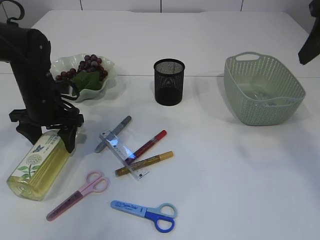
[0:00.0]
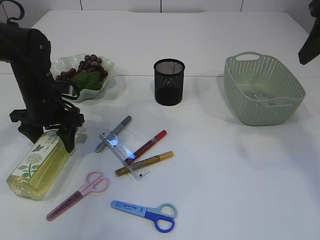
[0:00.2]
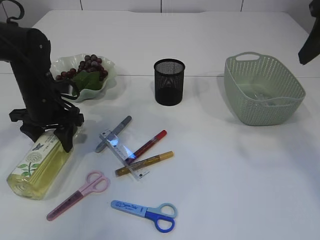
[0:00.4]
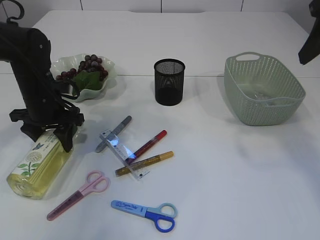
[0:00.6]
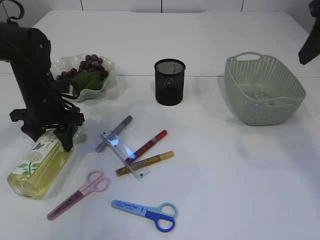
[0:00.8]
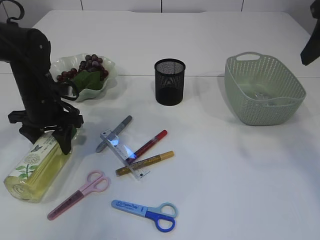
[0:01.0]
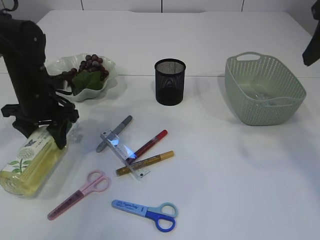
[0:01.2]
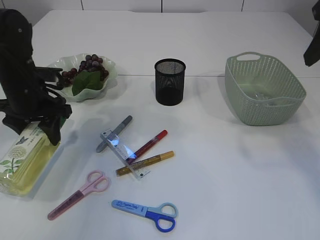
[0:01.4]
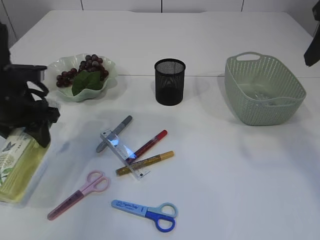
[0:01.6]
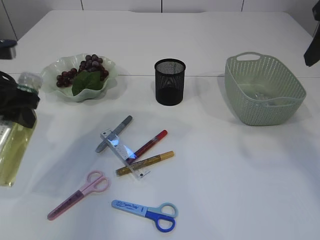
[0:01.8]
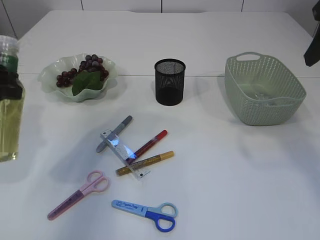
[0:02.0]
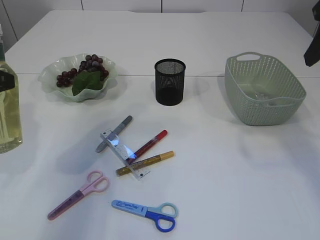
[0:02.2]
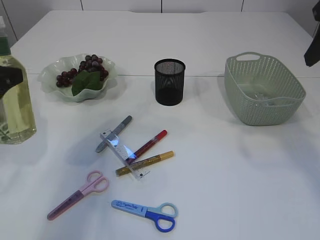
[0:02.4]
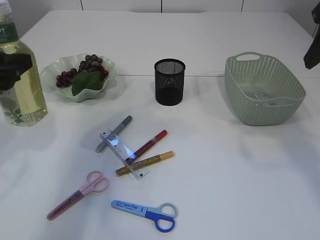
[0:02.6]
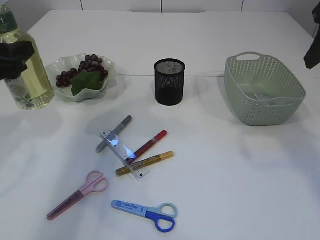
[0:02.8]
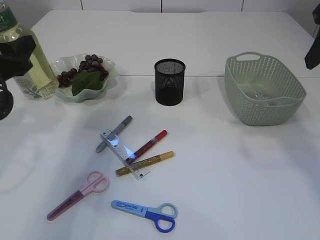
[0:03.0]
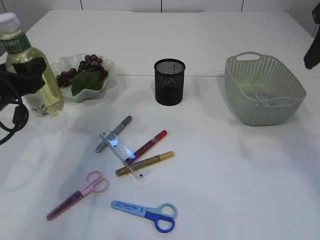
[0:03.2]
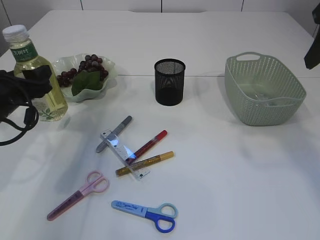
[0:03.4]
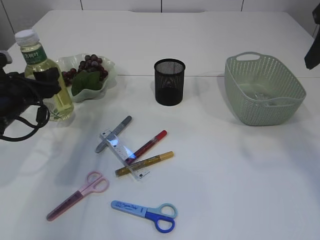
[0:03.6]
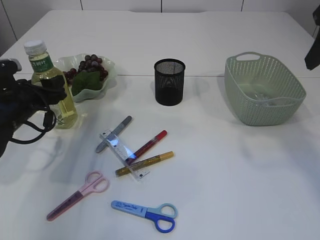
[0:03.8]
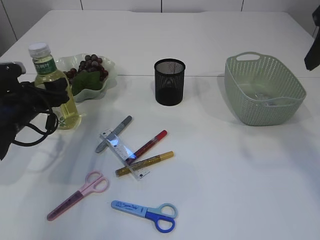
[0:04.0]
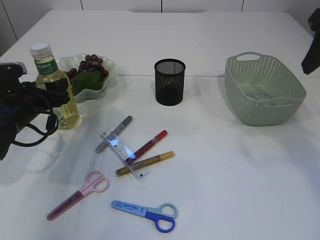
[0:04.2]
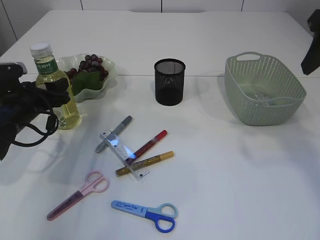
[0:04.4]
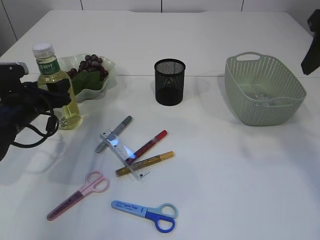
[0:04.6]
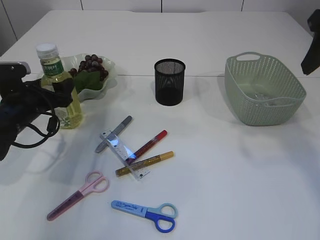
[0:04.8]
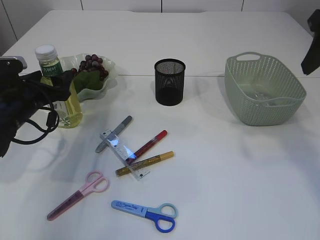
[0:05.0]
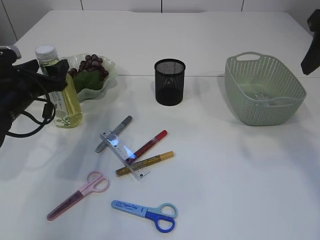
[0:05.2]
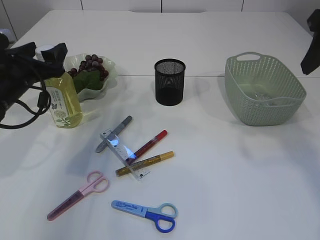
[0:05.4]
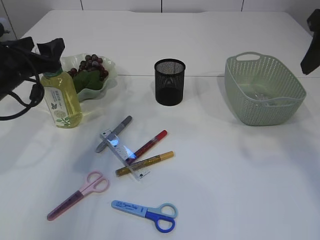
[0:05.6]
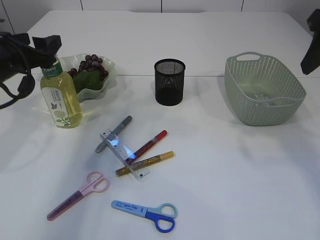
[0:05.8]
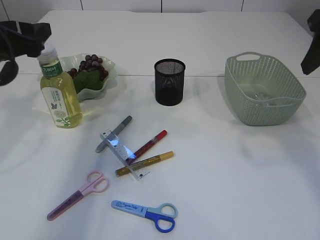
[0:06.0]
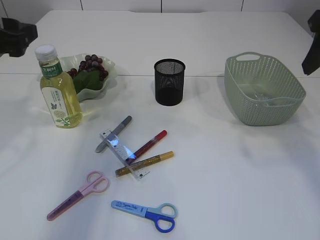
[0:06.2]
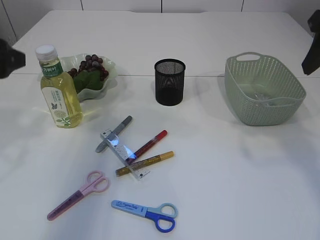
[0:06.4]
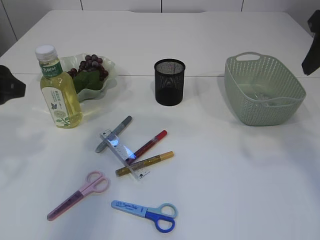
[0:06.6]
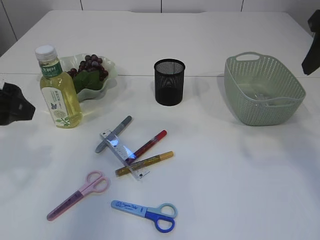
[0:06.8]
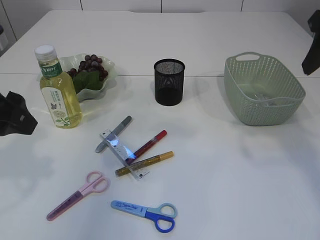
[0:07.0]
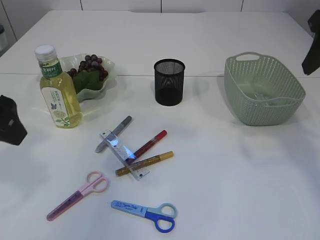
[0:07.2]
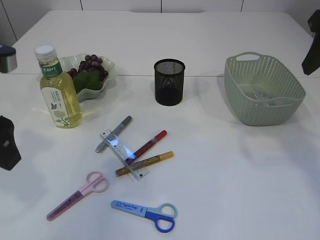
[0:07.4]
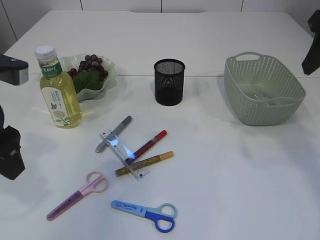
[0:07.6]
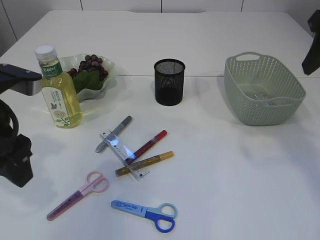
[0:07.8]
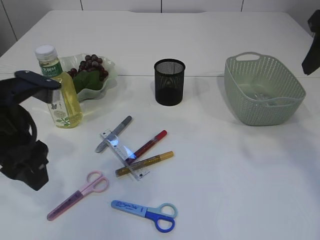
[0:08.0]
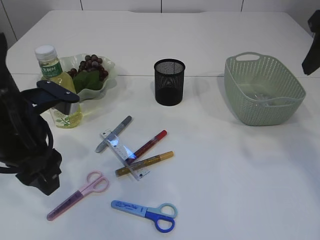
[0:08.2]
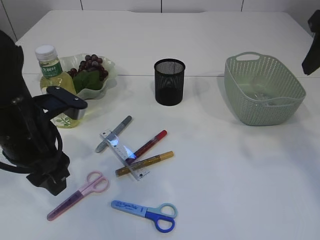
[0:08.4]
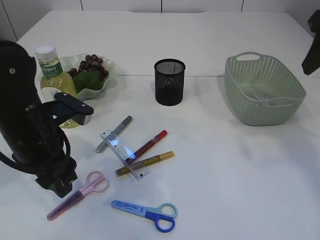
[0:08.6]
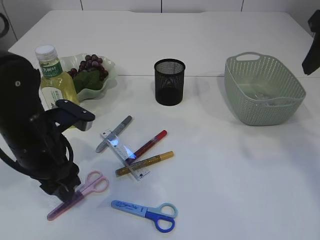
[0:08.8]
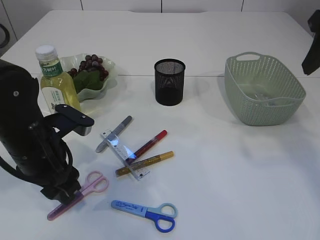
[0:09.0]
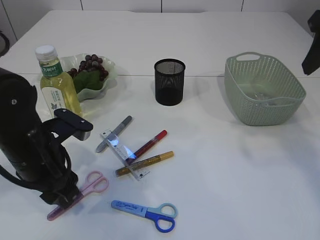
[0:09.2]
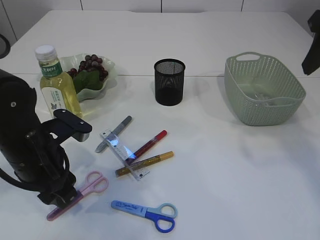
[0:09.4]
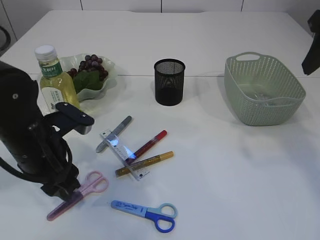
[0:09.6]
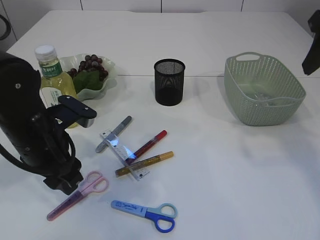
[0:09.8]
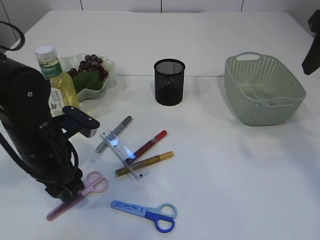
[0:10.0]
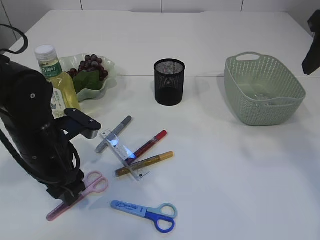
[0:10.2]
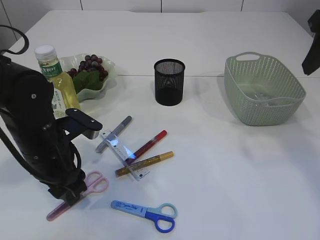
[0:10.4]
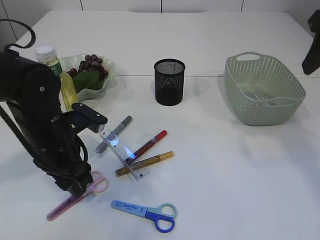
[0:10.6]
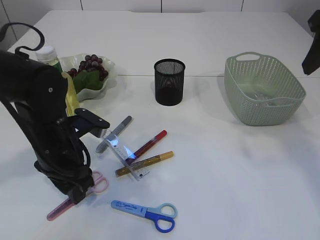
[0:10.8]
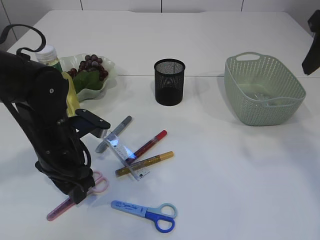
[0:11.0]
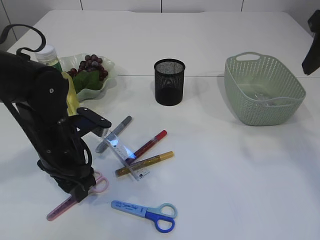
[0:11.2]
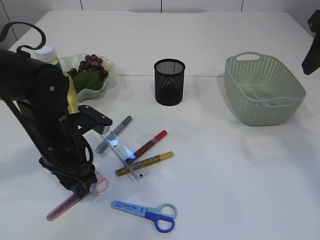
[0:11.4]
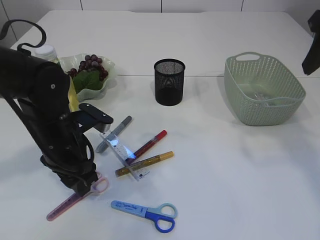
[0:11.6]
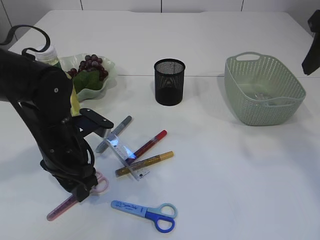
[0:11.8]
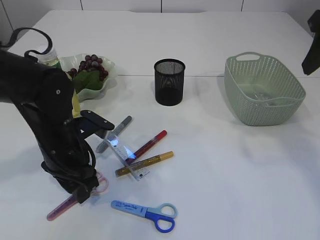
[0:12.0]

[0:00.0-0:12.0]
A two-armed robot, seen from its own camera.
Step, 0:01.8 to 0:05.8: Place the bottle.
0:00.0 to 0:01.6: The left gripper goes roughly 5 cm upward and backward.
0:03.0 to 0:04.4: The left gripper shifts about 15 cm downward and forward.
0:04.4 to 0:06.0: The left gripper shifts about 15 cm upward.
0:06.0 to 0:07.6: The left gripper goes approximately 10 cm backward.
0:07.6 to 0:09.0: The left gripper is displaced downward by about 10 cm.
0:09.0 to 0:12.0: The grippers make only small movements.

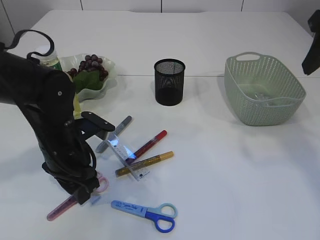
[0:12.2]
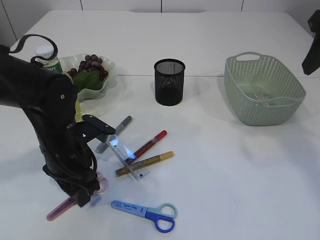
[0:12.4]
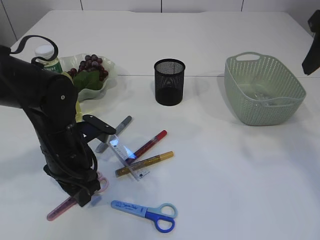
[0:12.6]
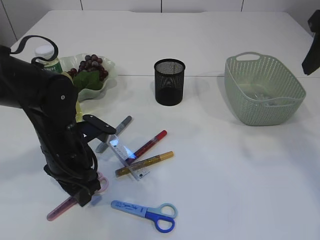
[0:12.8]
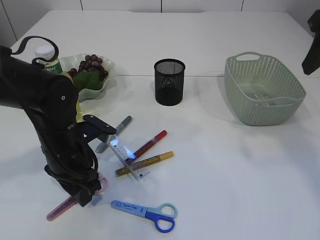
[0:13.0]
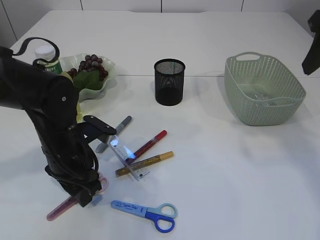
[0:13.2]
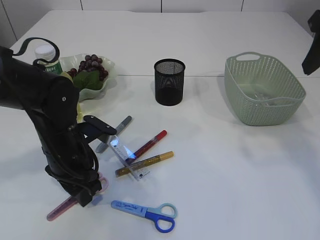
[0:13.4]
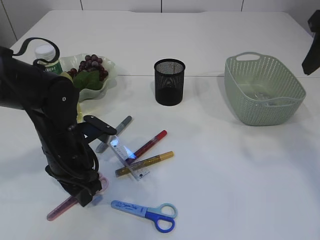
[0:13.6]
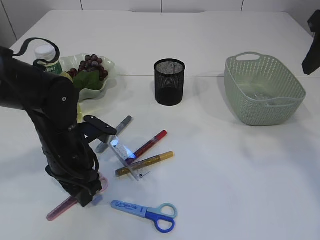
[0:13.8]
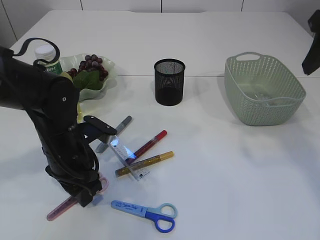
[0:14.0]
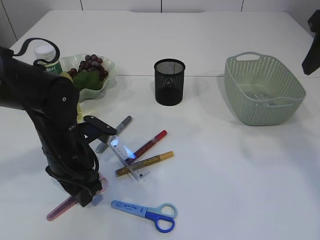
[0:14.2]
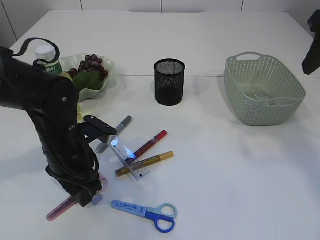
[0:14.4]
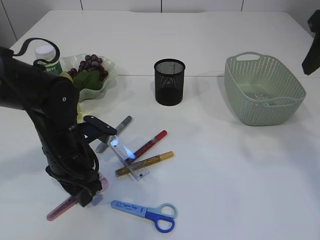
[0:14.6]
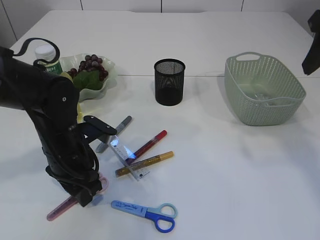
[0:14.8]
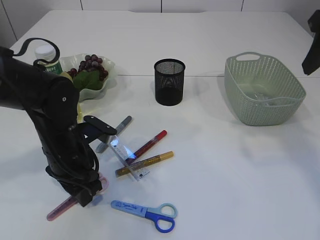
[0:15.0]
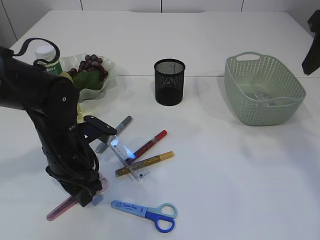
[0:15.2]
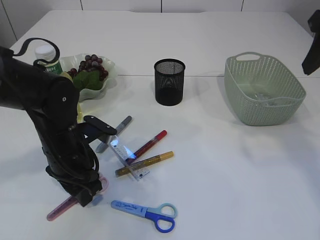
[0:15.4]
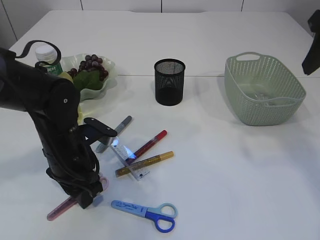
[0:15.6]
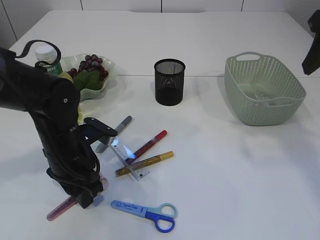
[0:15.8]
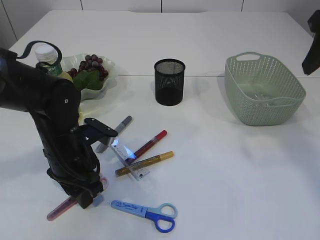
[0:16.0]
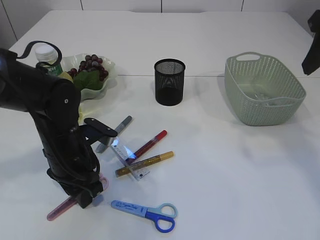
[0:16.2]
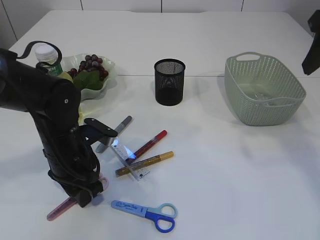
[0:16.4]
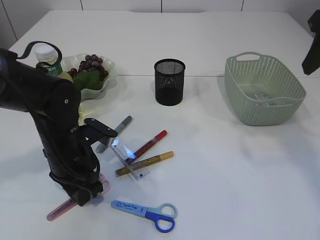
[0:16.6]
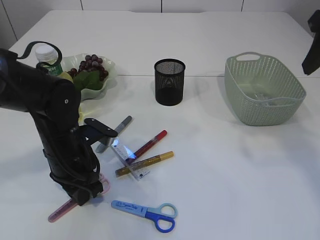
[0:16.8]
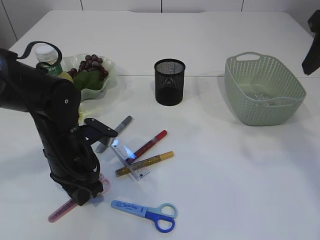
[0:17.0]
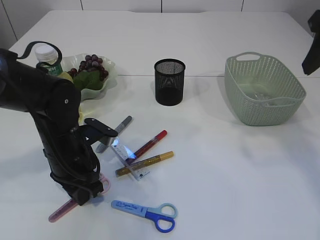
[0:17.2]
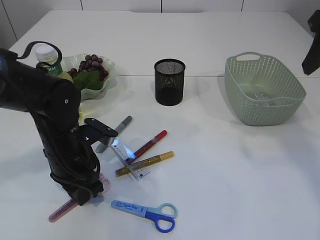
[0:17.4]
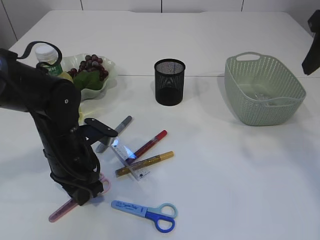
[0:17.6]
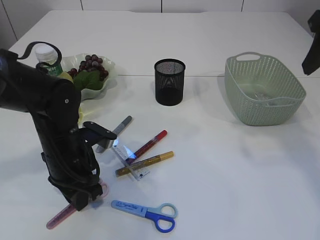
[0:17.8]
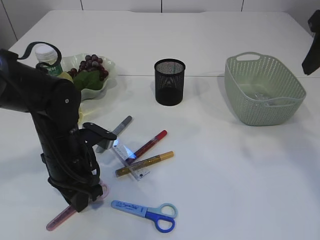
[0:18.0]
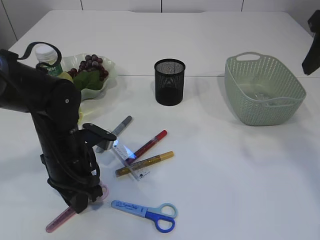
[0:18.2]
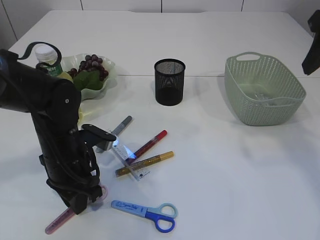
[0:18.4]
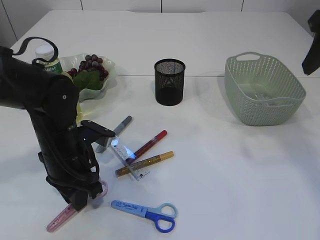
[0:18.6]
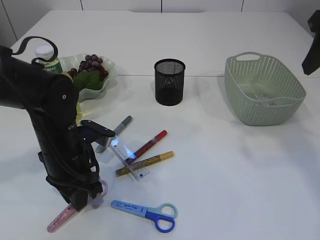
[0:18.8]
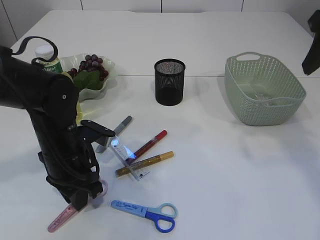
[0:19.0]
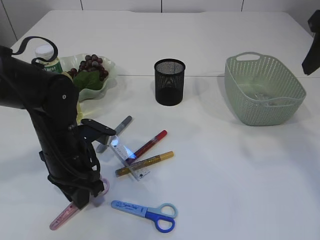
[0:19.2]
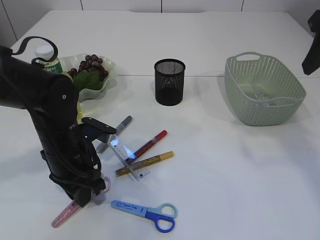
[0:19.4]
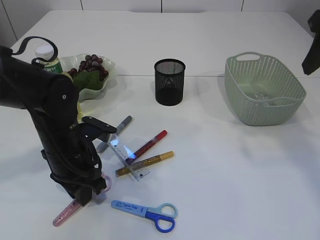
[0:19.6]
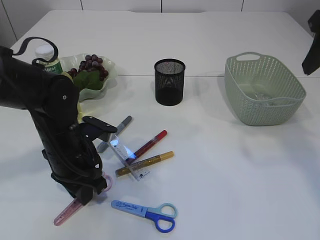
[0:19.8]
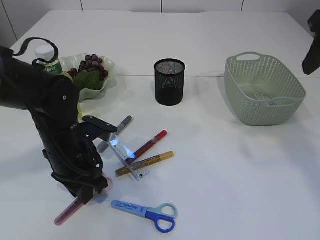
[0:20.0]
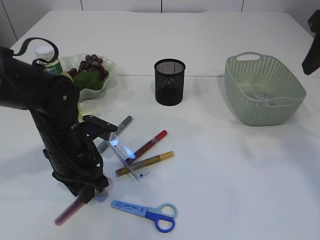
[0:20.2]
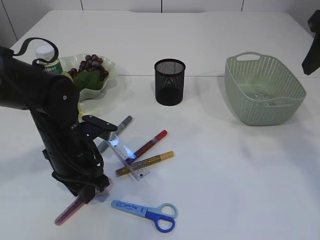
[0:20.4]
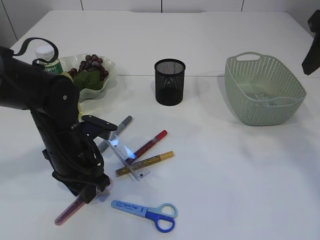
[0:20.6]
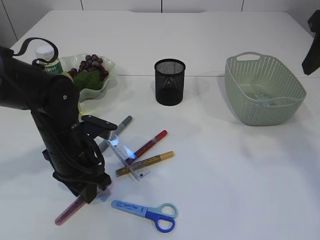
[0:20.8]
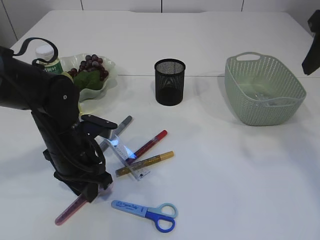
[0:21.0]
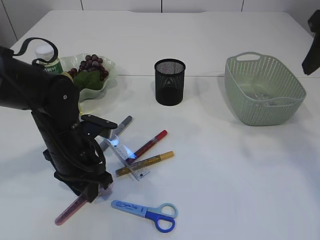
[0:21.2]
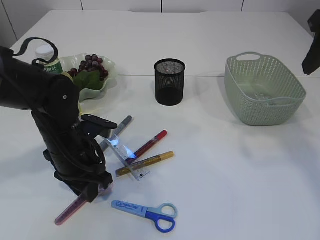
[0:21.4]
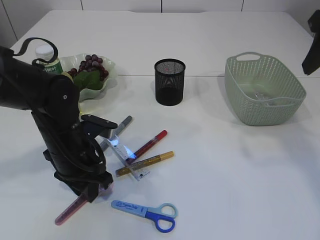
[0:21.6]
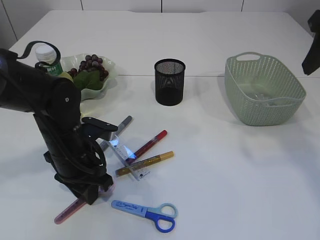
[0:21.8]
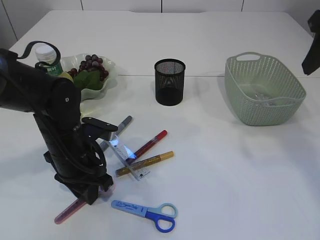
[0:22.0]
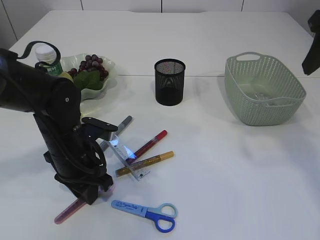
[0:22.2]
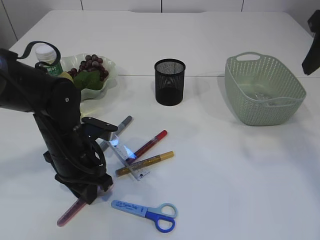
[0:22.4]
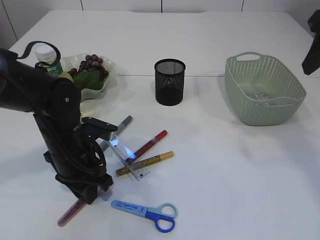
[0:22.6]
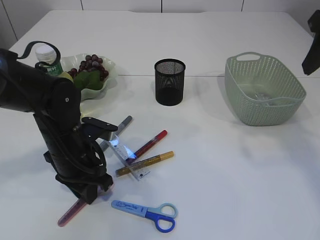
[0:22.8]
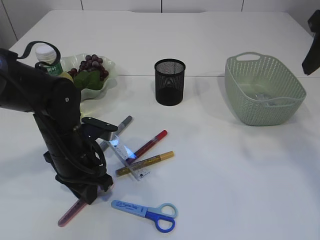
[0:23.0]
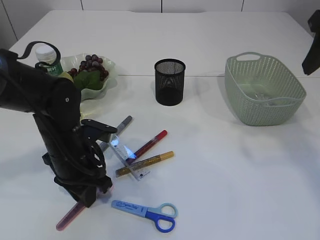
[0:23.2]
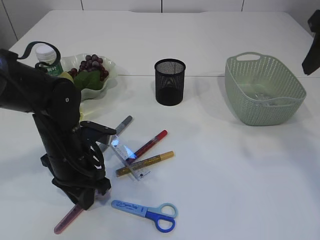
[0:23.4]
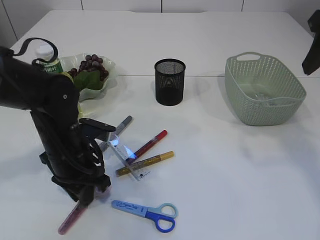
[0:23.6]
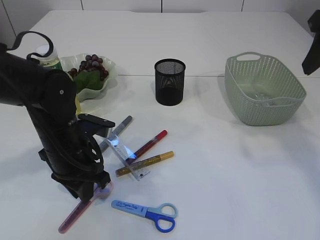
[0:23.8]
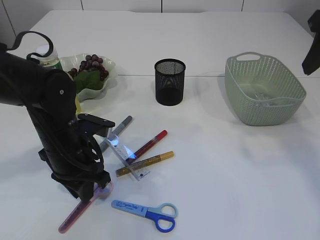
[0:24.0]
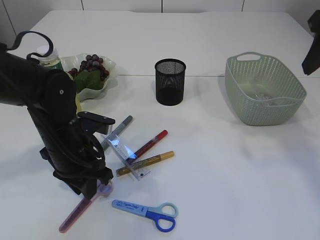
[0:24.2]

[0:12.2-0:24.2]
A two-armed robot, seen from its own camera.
0:12.2 to 0:15.2: Both grippers stay about where they are.
0:15.2 to 0:16.6: Both grippers stay put.
0:16.6 to 0:18.2: Both grippers stay about where they are.
0:18.2 to 0:19.8: Both grippers stay put.
0:19.8 to 0:21.2: The grippers move only a little.
0:21.2 to 0:22.6: Both grippers stay about where they are.
0:22.6 to 0:24.2: The grippers make only small movements.
